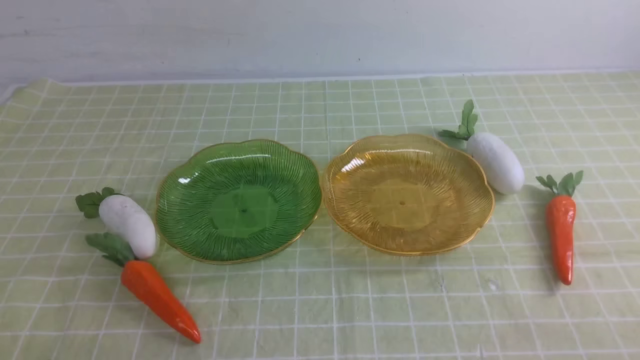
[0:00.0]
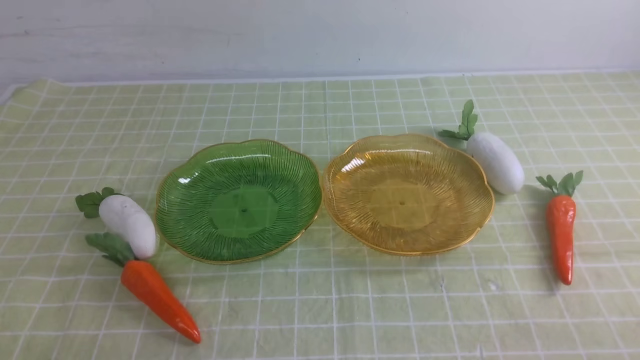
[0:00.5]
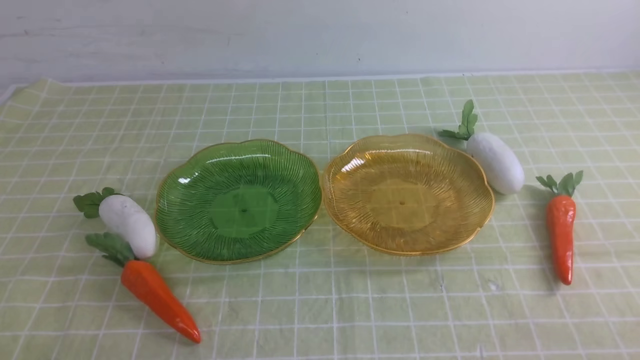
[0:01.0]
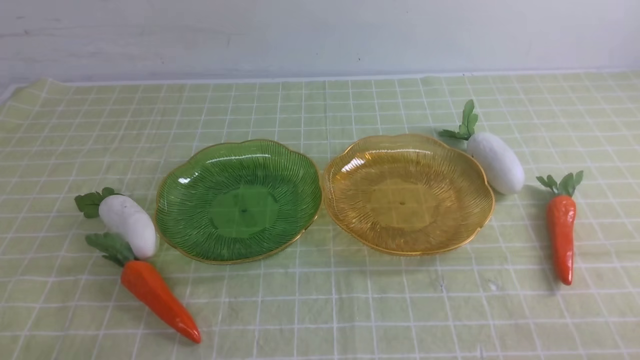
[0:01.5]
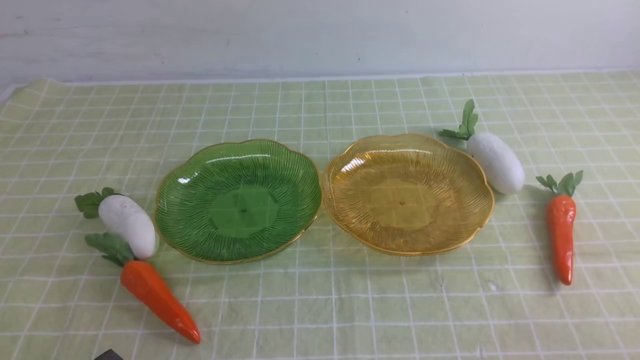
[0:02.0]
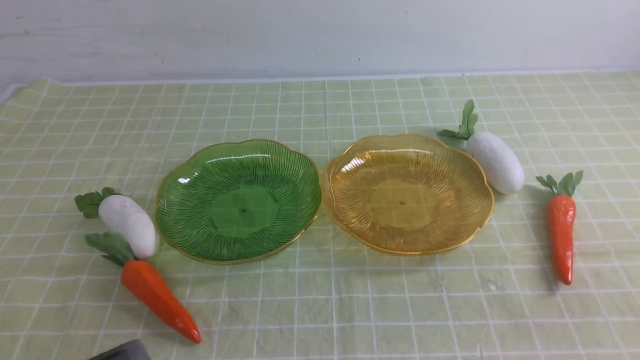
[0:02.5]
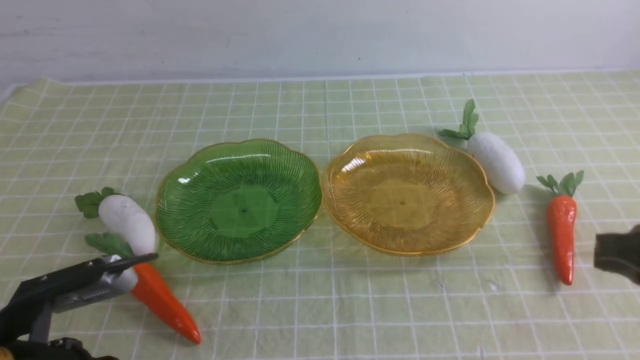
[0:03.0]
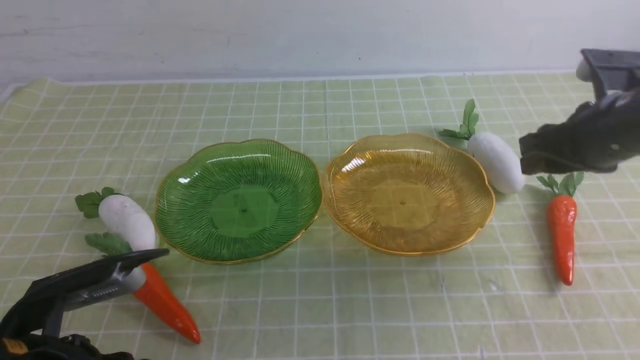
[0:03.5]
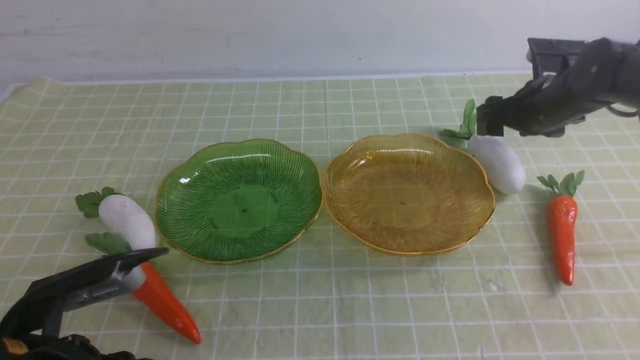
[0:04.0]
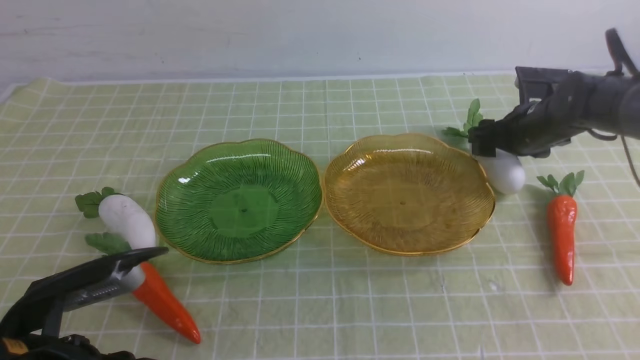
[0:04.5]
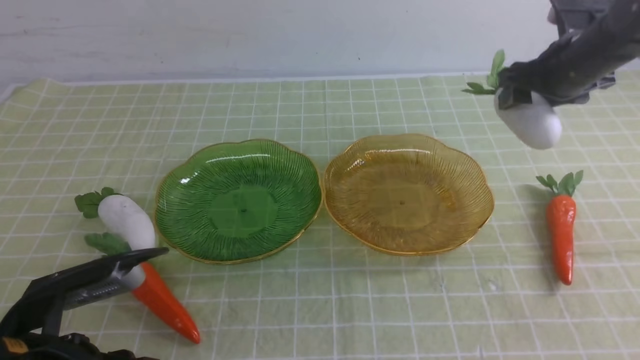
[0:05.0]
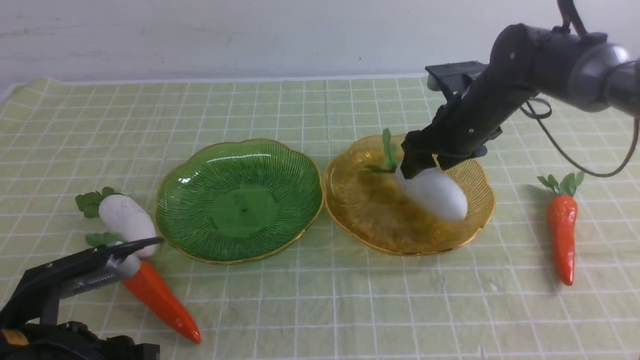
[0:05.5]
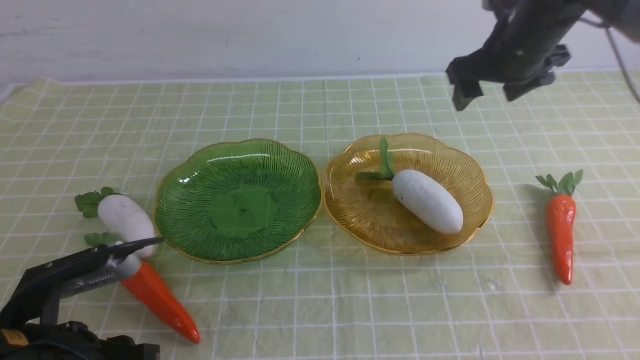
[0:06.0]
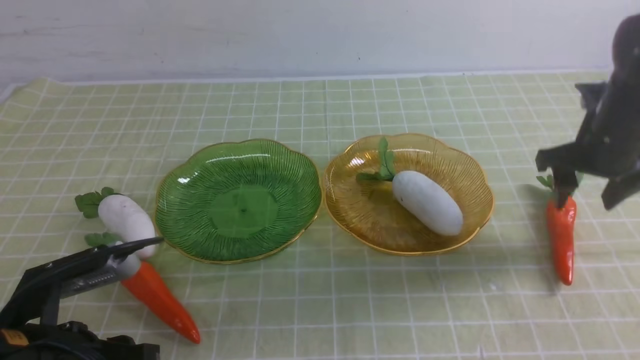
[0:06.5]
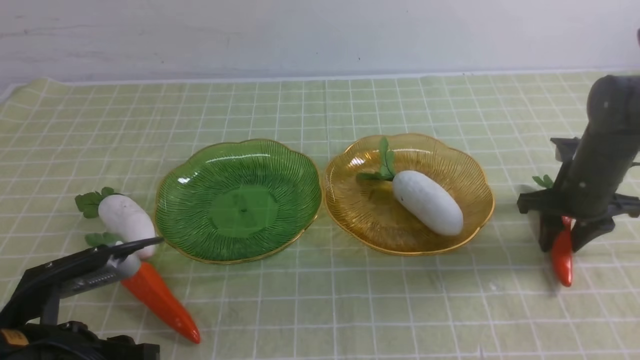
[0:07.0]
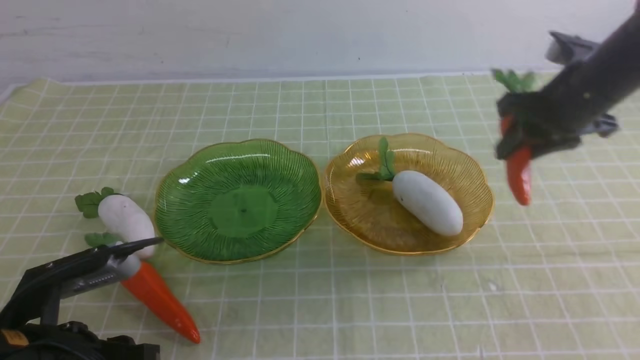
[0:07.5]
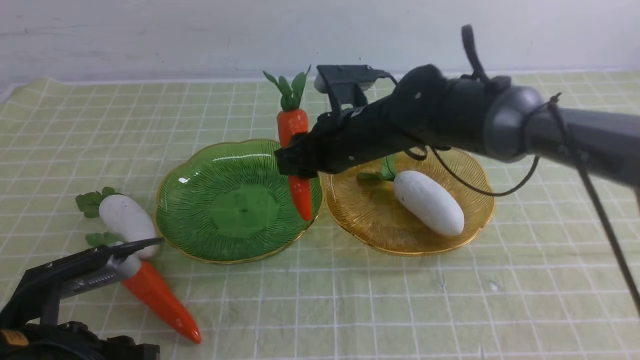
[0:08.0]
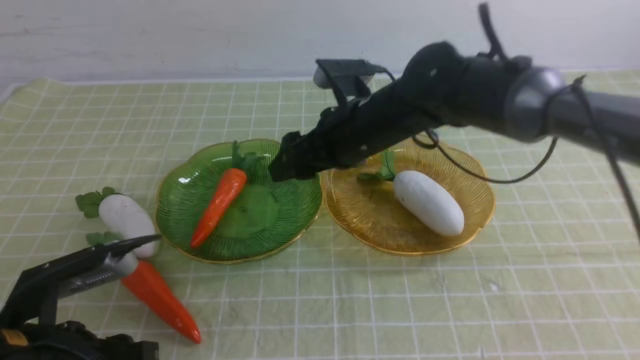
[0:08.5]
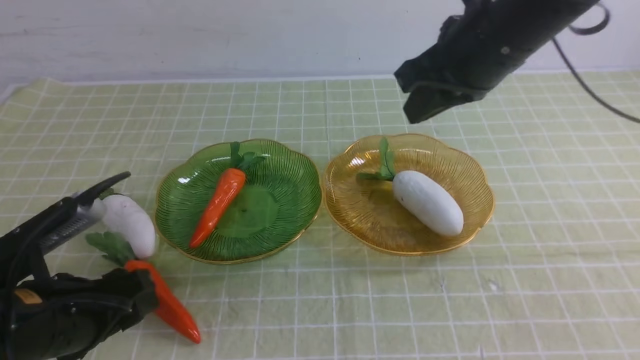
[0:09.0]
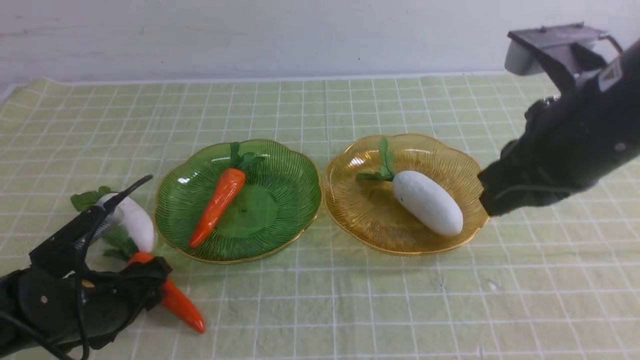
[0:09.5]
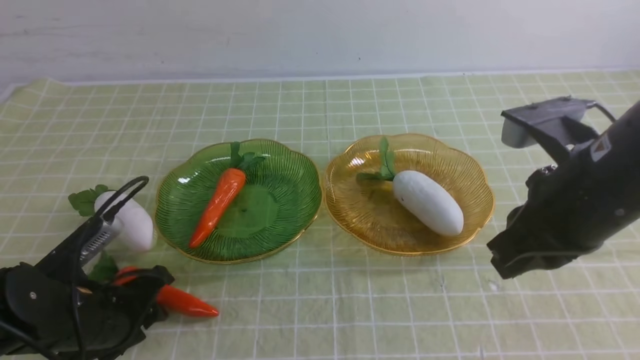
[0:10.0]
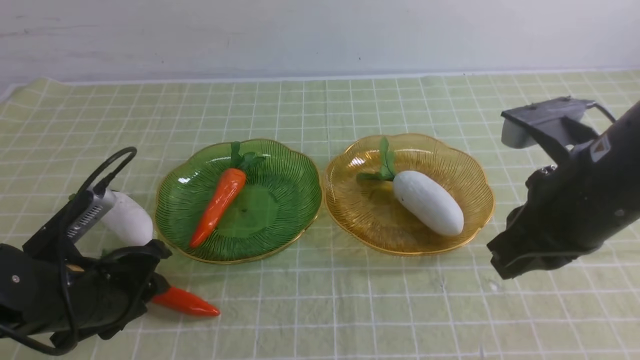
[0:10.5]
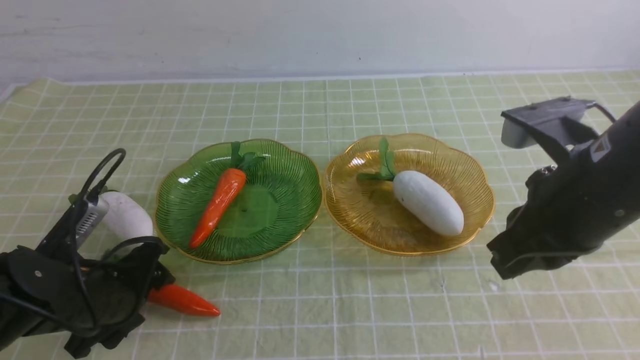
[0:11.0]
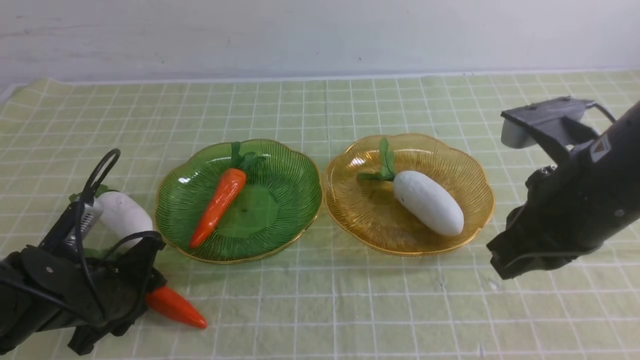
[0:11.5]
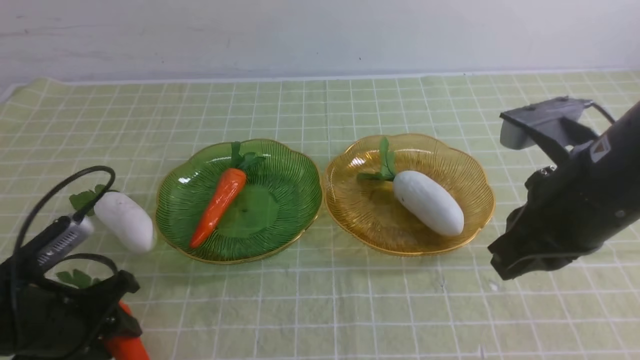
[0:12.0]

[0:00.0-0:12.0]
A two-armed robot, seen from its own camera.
Step, 0:00.0 to 0:05.5: use the right arm to grab a radish and put it into the right plate.
Step, 0:06.0 to 0:08.5: use the right arm to grab a carrot and put it into the left plate.
0:02.0 to 0:04.0: The right gripper shifts roughly 40 cm forward, and opens up; the left gripper heads forward, covering about 10 cm, and opens.
0:04.0 to 0:06.0: The right gripper is displaced upward and to the left by approximately 10 cm.
0:06.0 to 0:08.0: The right gripper is displaced to the left by roughly 15 cm, and closes its fingers.
0:08.0 to 0:10.0: The left gripper goes about 10 cm forward and downward. Meanwhile the right gripper moves backward, to the right and upward, roughly 25 cm, and closes up.
0:10.0 to 0:12.0: The grippers make only small movements.

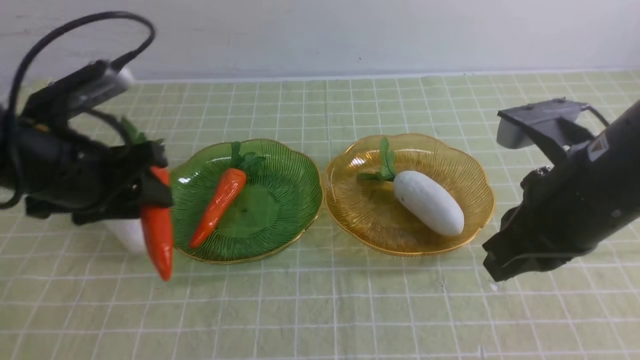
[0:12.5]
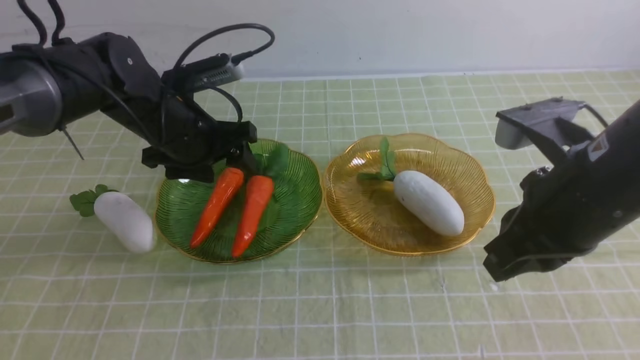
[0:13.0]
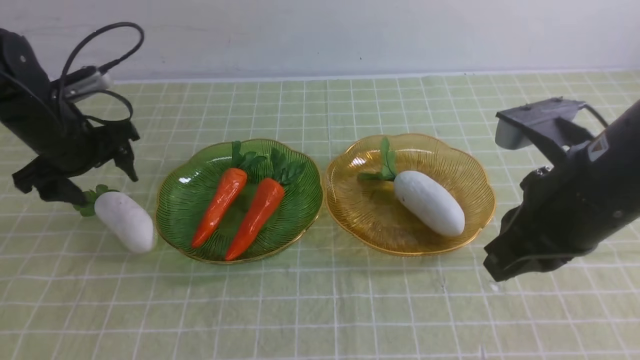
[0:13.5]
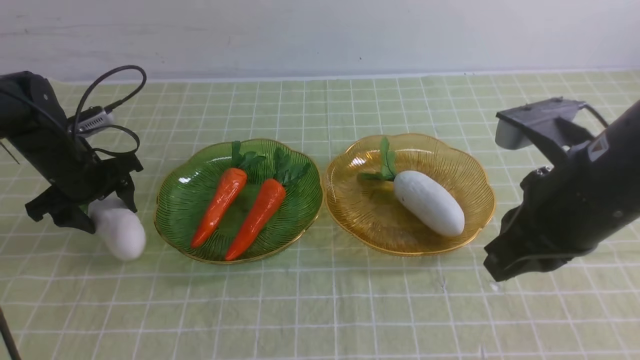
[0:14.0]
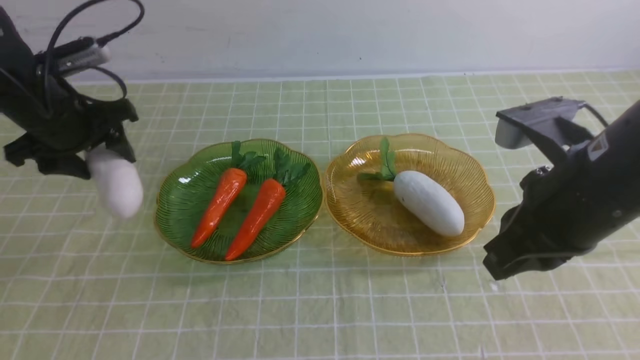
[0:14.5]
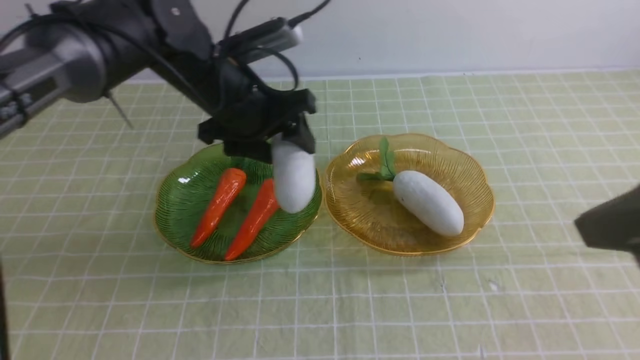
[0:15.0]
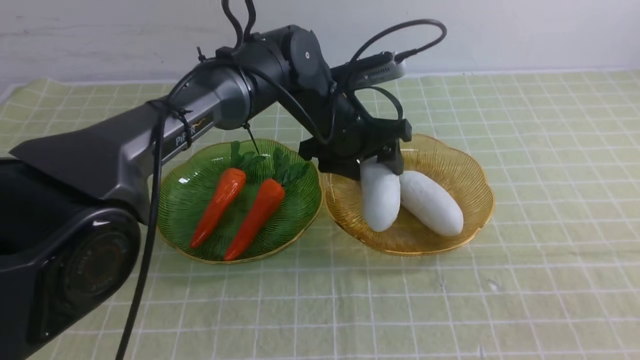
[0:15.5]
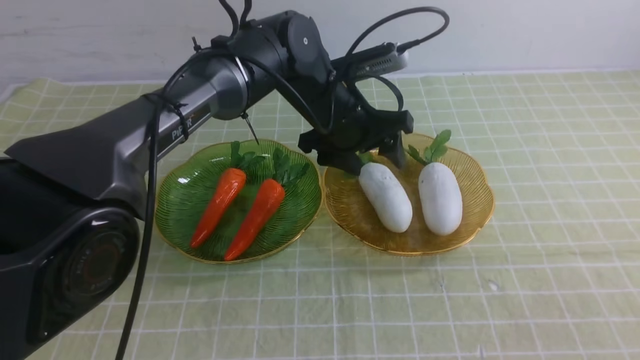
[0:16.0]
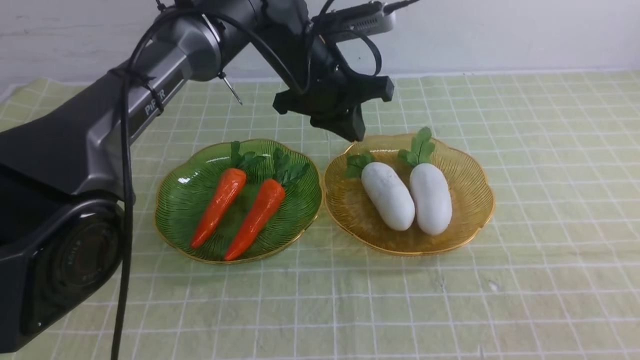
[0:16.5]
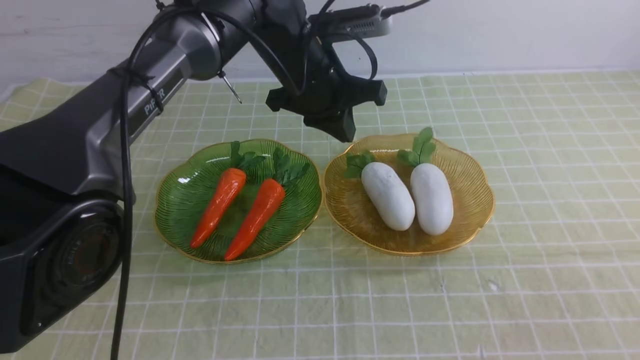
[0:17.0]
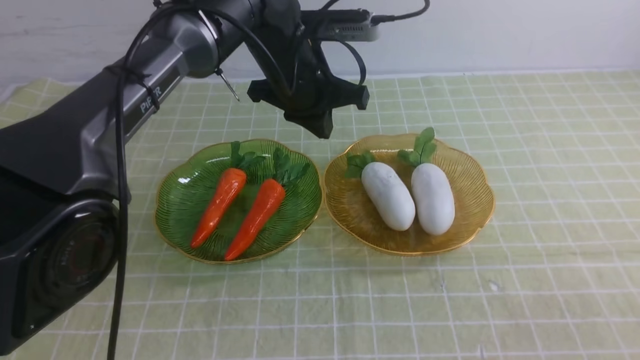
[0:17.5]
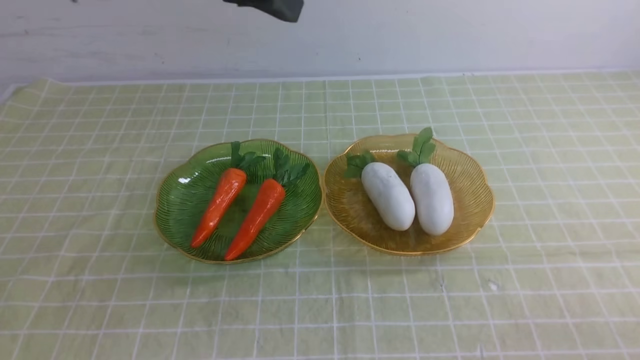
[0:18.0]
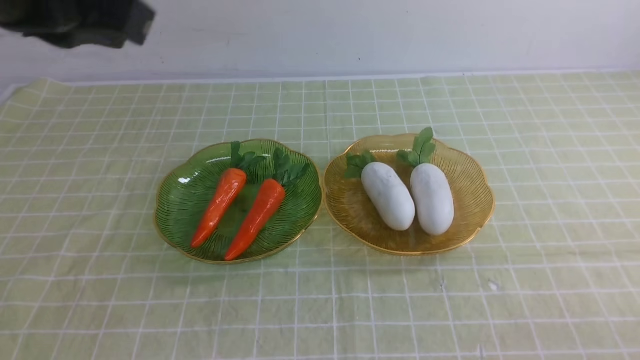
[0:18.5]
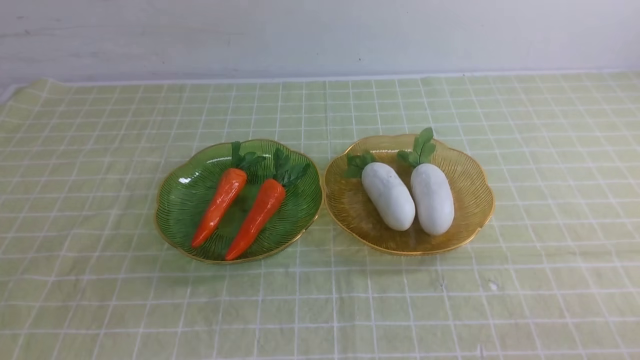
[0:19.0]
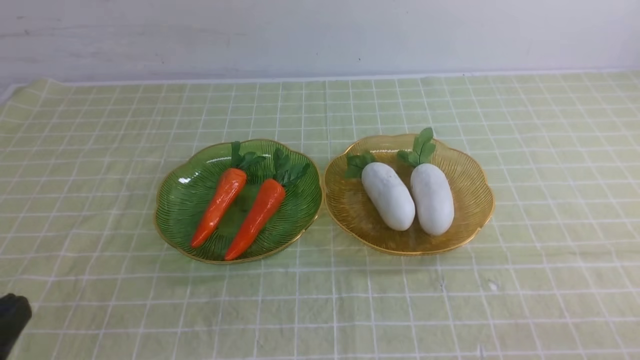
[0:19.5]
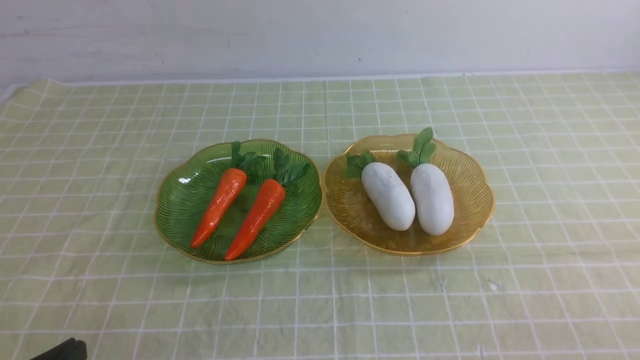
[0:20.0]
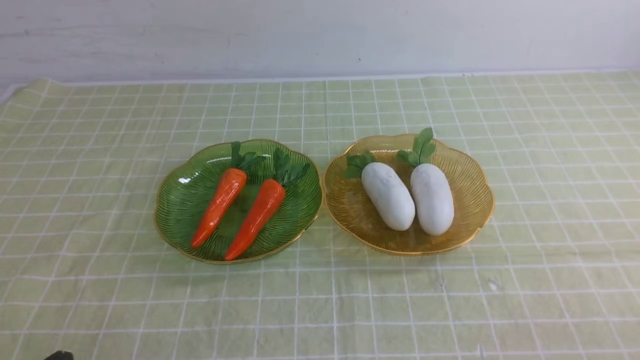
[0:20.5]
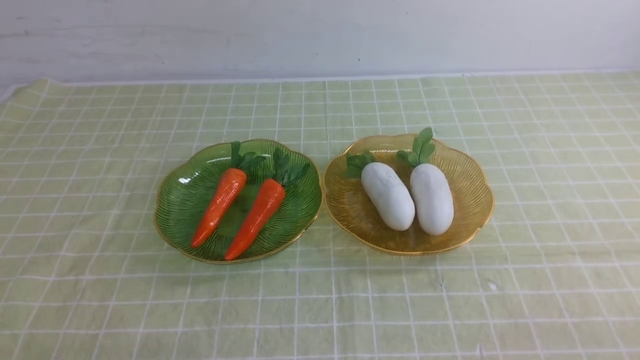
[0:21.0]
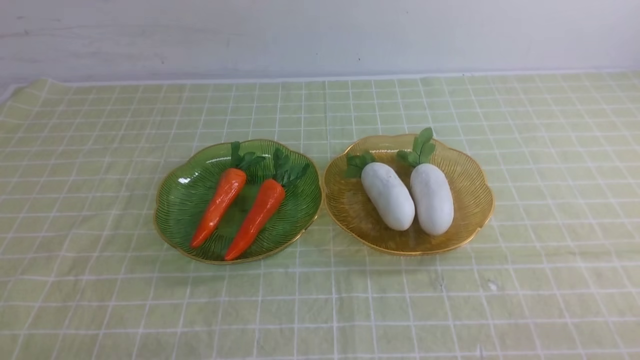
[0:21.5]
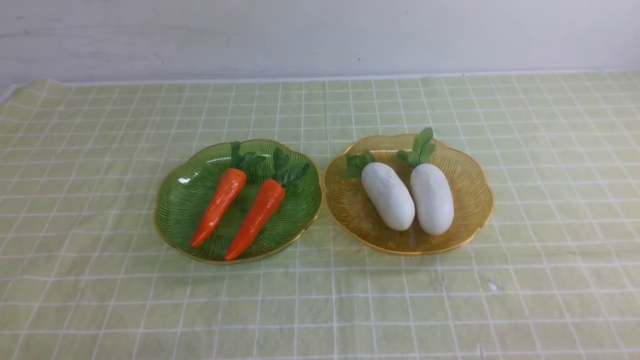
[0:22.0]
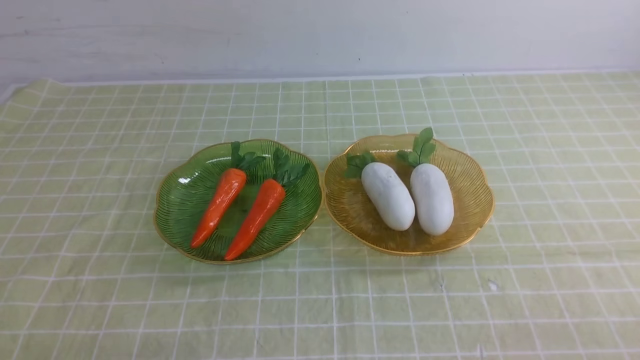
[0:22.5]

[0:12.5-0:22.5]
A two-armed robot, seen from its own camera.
Step, 0:14.0 to 0:16.5: use the left arm to grab a radish and put it into the right plate.
0:12.5 to 0:14.5: The left gripper moves forward, about 15 cm.
0:14.5 to 0:16.5: The right gripper moves backward and to the right, approximately 20 cm, while the left gripper goes approximately 25 cm to the right, and closes.
0:16.5 to 0:18.5: The right gripper goes approximately 10 cm downward; the left gripper moves backward, upward and to the left, roughly 30 cm.
0:18.5 to 0:20.5: The left gripper travels downward and backward by about 35 cm.
